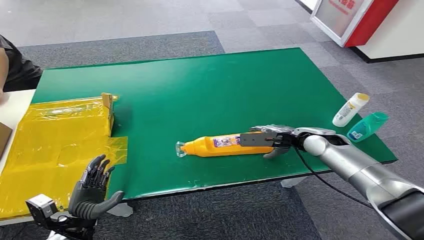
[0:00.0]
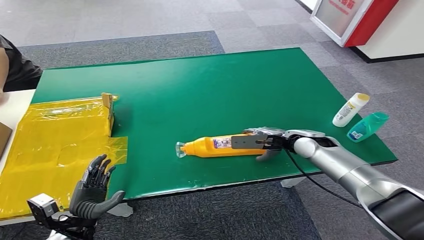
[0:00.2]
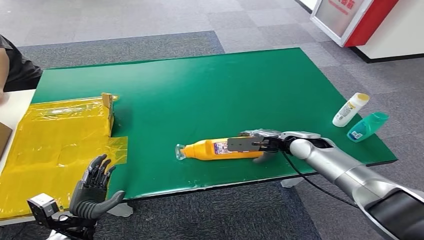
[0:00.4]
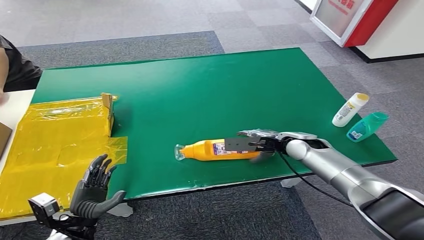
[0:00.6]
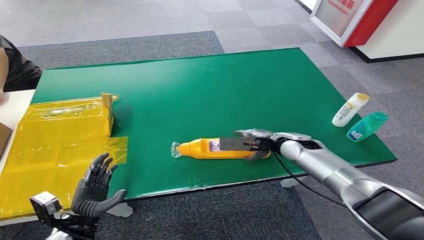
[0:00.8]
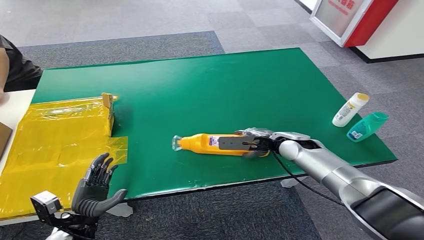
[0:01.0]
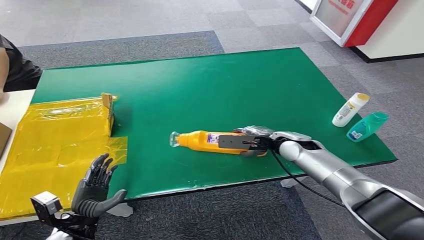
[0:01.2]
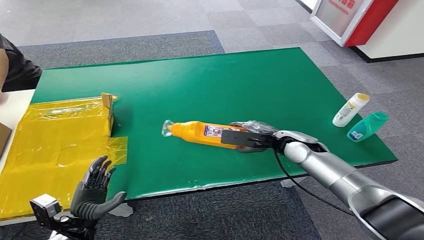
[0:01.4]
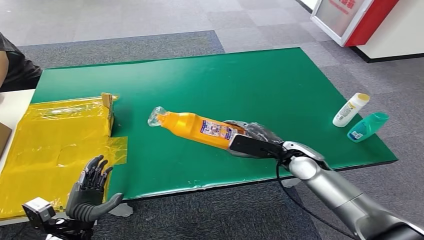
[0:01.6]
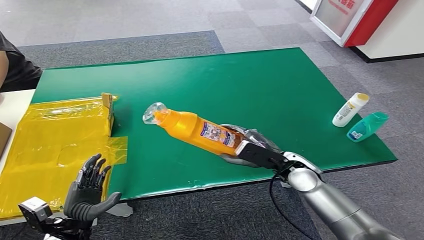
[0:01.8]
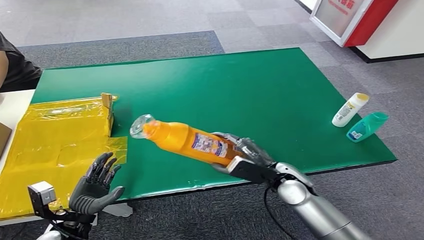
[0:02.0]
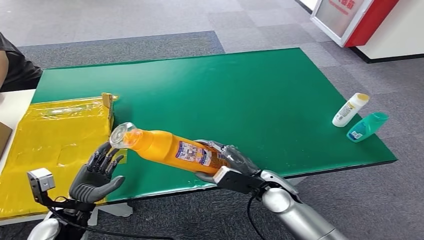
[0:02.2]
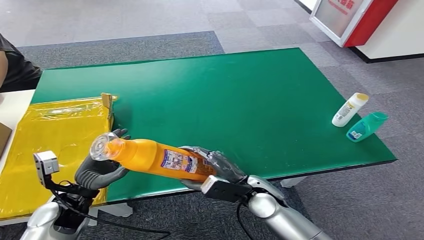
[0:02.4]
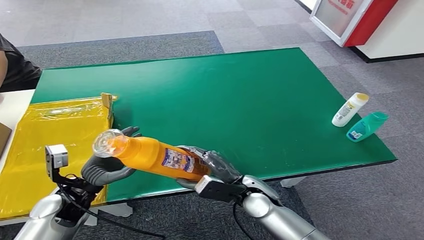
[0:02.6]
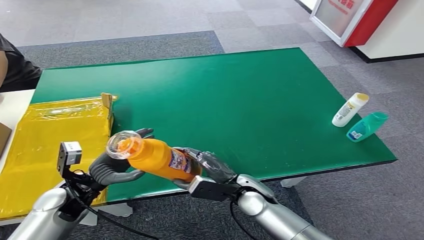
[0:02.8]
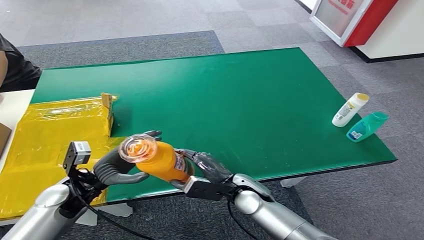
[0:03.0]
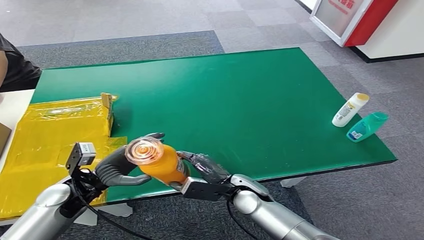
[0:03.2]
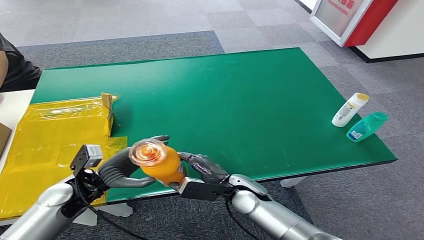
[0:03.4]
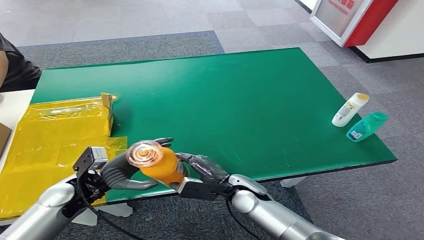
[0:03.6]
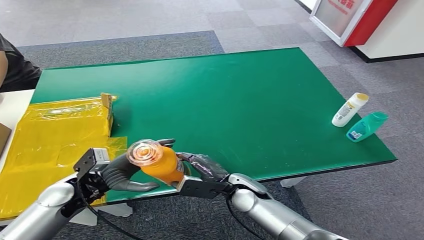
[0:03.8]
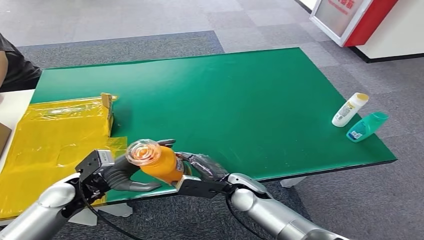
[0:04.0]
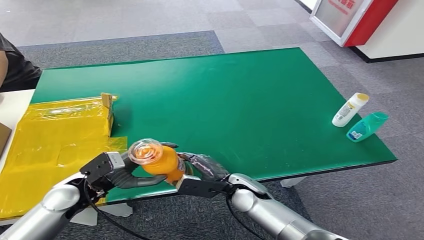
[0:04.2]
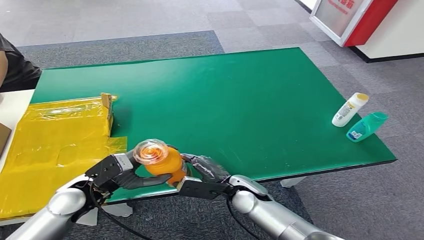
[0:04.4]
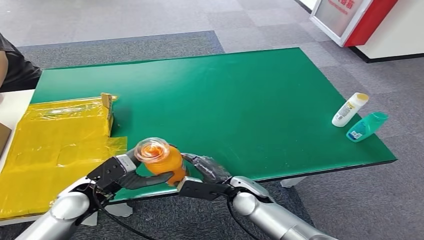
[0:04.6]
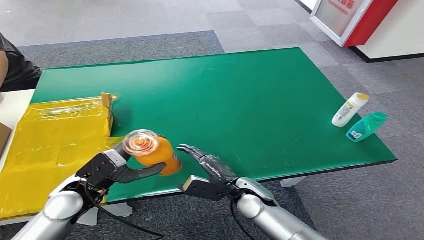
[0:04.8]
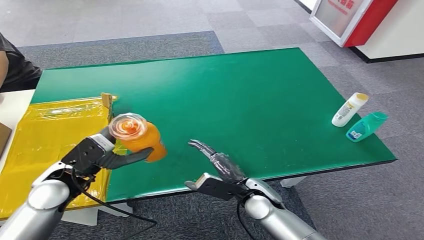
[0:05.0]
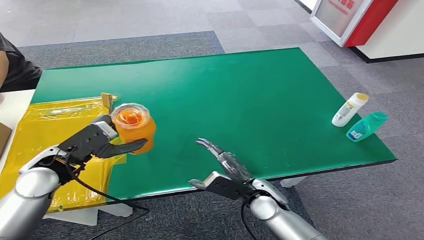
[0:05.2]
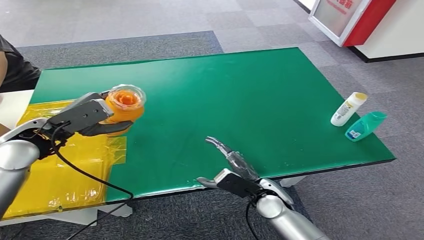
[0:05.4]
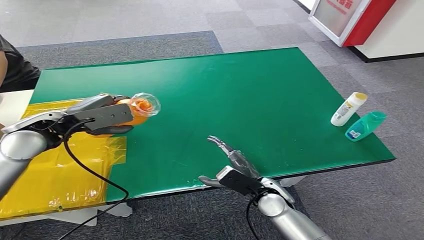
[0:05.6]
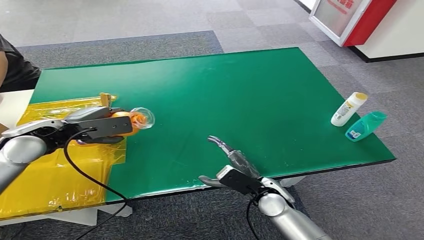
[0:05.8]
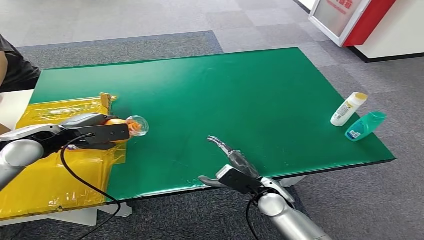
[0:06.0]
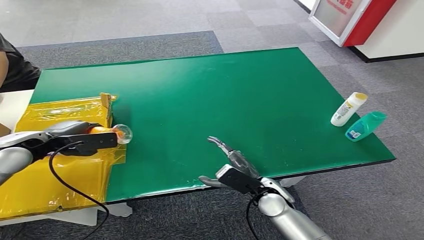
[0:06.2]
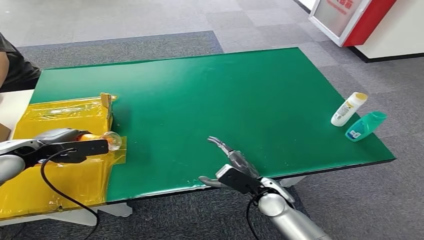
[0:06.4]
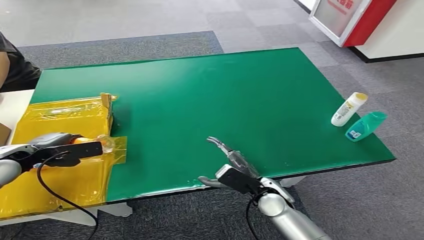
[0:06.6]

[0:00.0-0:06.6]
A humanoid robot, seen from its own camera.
Step, 0:00.0 to 0:02.2: Pick up the bottle from the table.
Step, 0:02.4 to 0:06.4: Turn the bottle to the front side.
0:01.6 to 0:03.2: The left hand goes approximately 15 cm forward and upward, while the right hand travels to the left, downward and backward by some 15 cm.
0:03.2 to 0:05.0: The left hand moves upward, about 5 cm.
0:05.0 to 0:06.6: The left hand is displaced to the left and forward by about 15 cm.
